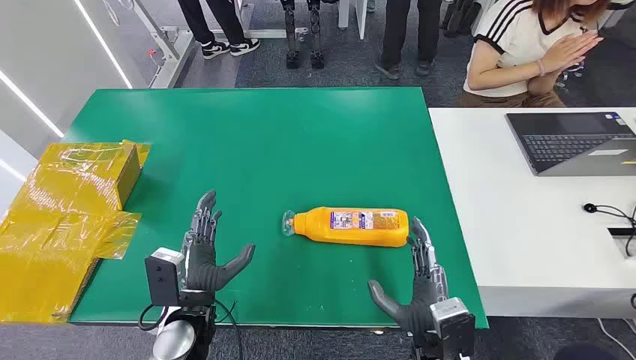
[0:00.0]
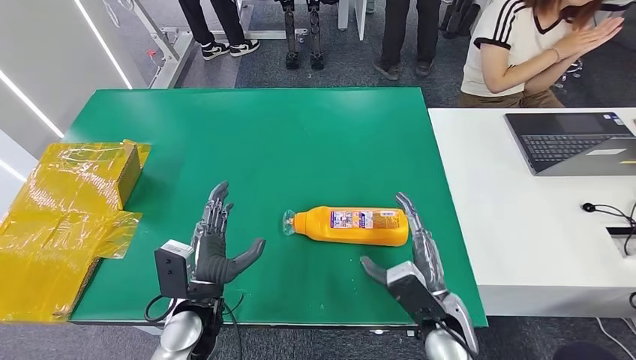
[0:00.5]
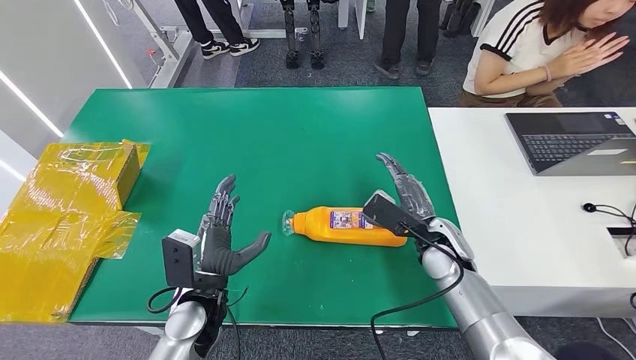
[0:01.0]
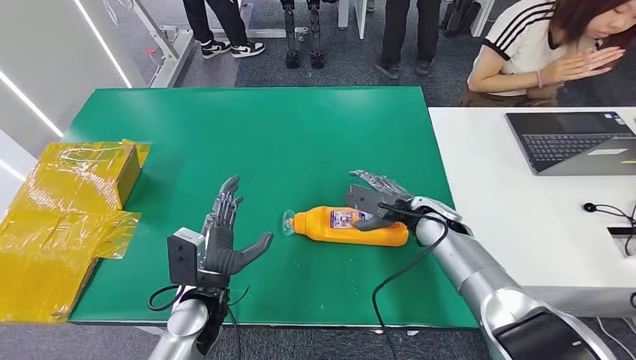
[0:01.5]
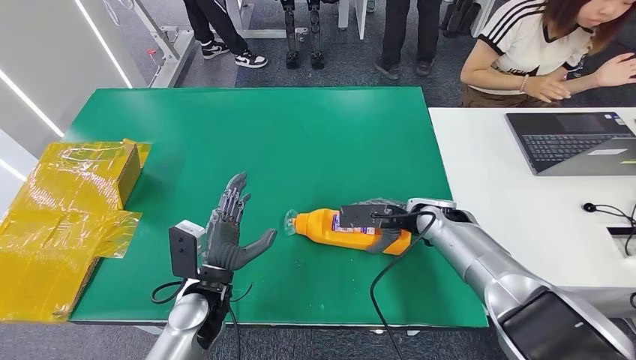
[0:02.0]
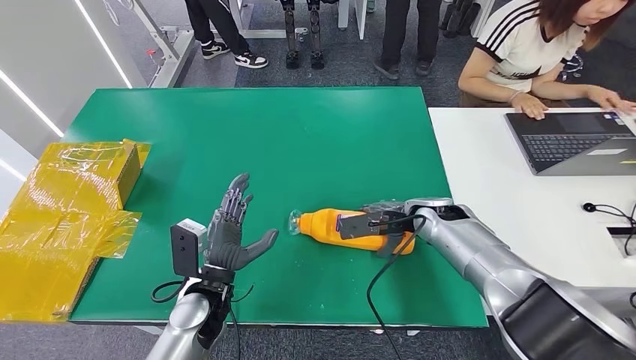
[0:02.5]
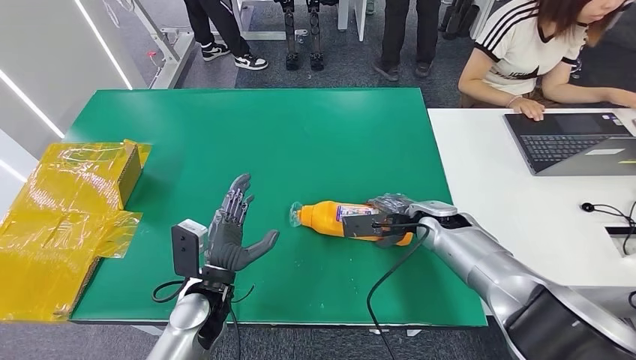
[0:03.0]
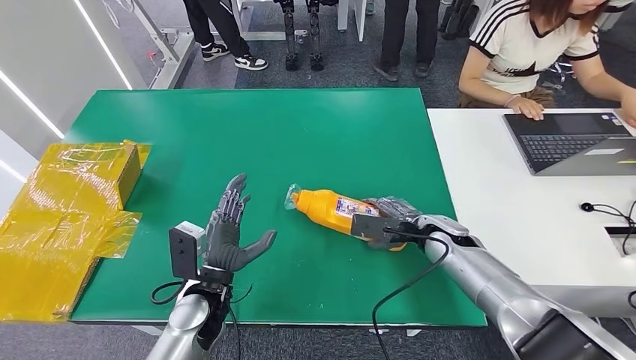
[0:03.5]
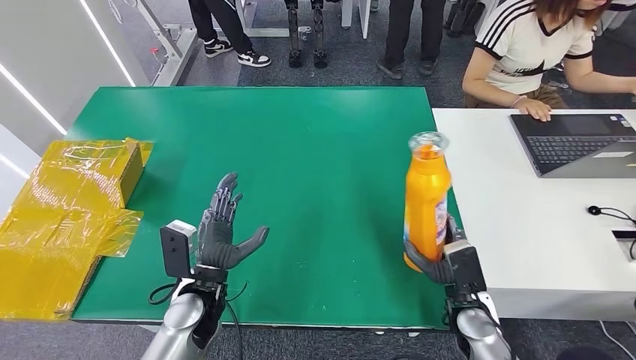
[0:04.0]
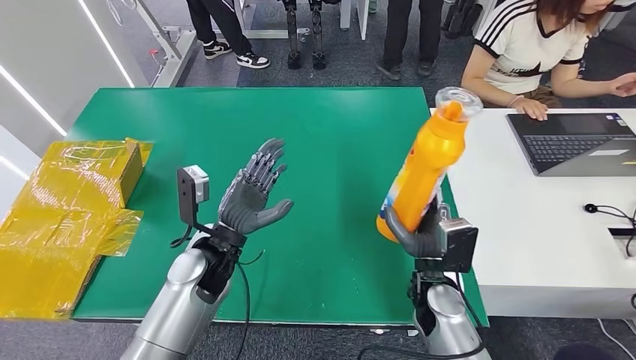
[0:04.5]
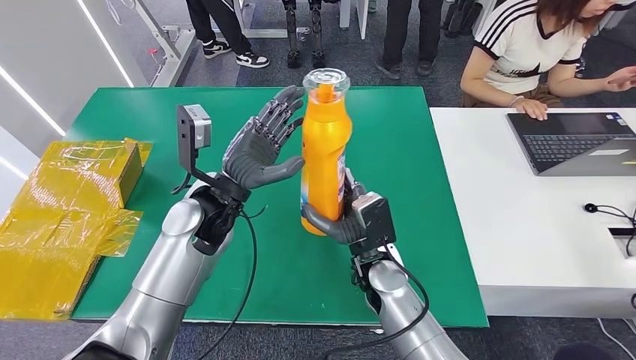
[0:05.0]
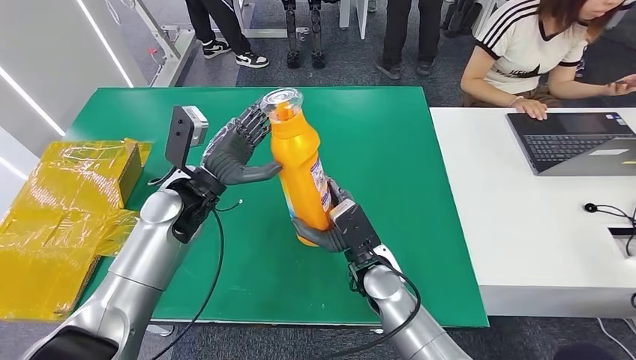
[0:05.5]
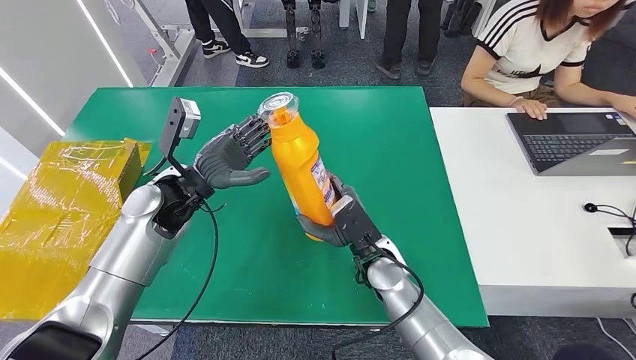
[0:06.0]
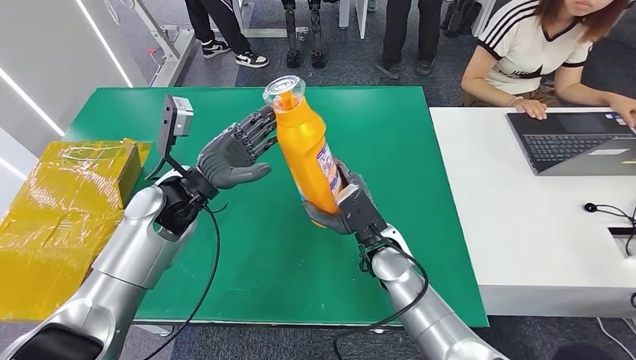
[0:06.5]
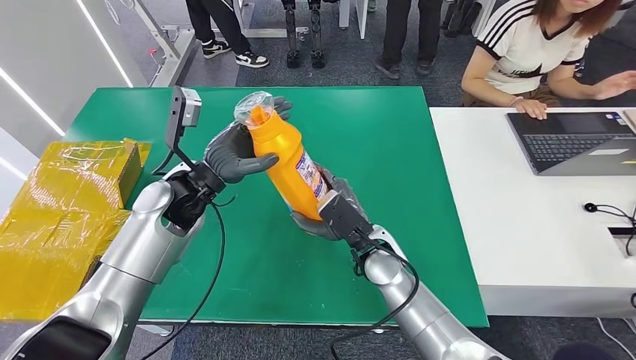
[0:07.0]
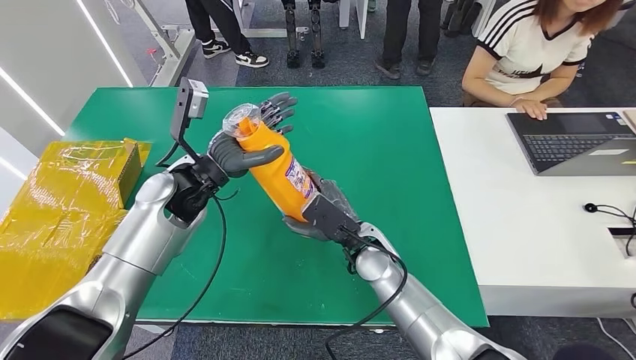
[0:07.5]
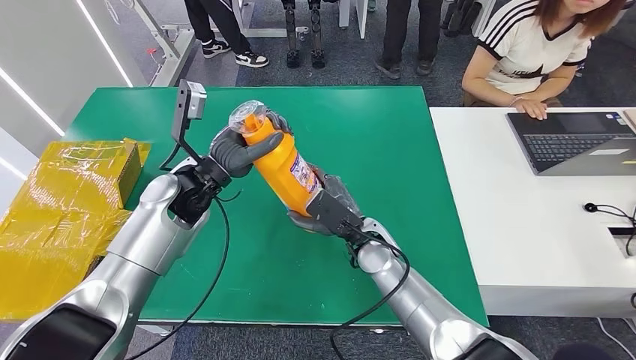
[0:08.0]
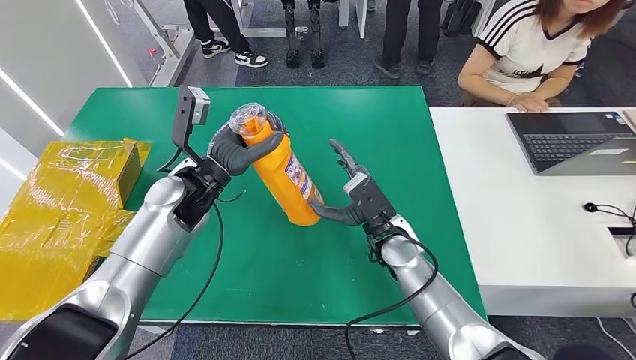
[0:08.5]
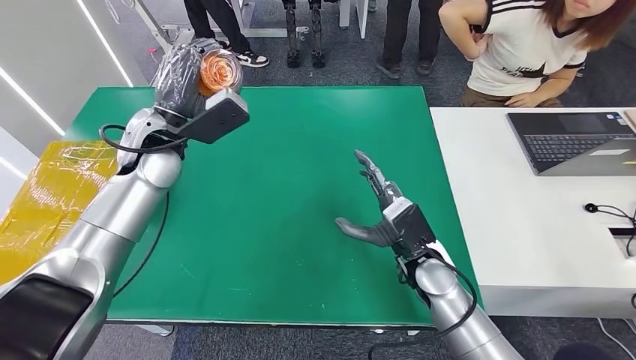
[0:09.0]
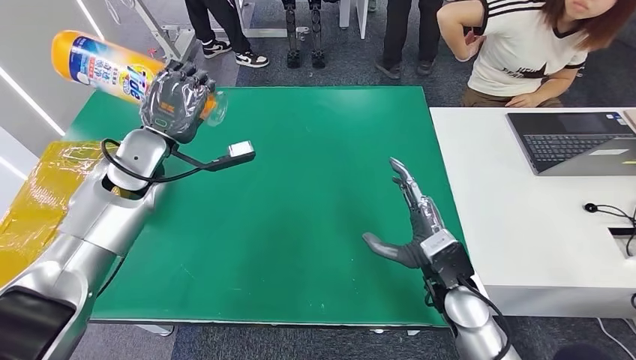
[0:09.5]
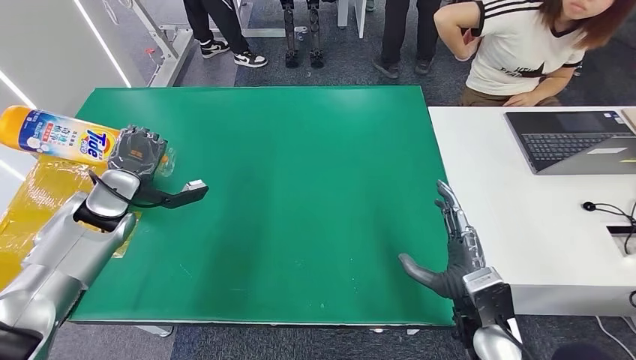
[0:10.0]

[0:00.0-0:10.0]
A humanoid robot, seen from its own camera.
Step, 0:00.0 to 0:04.0: Pick up the bottle from the table.
0:06.0 to 0:08.0: The hands stay close to where they were, moving slightly.

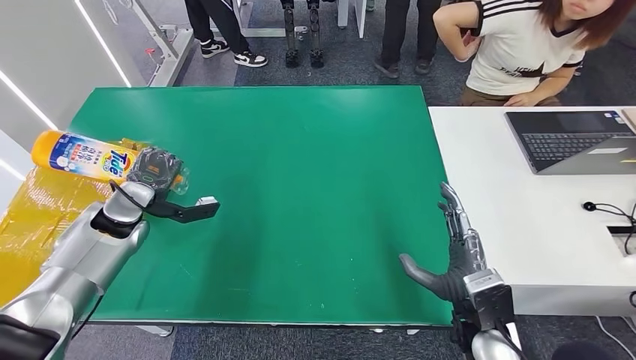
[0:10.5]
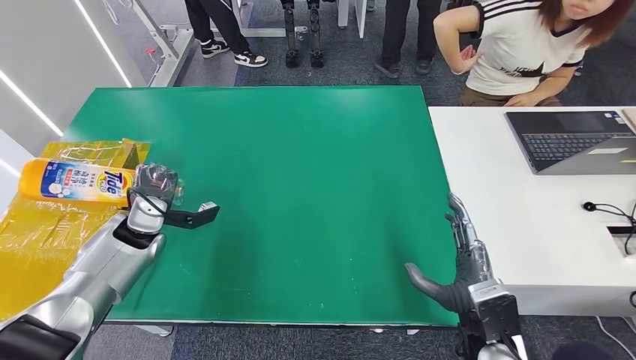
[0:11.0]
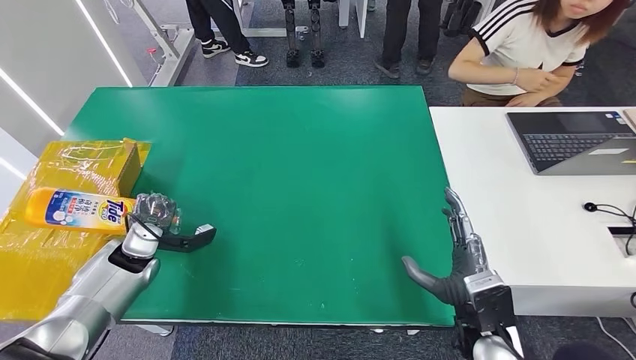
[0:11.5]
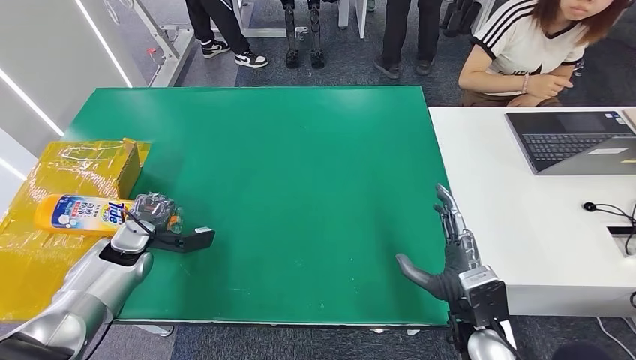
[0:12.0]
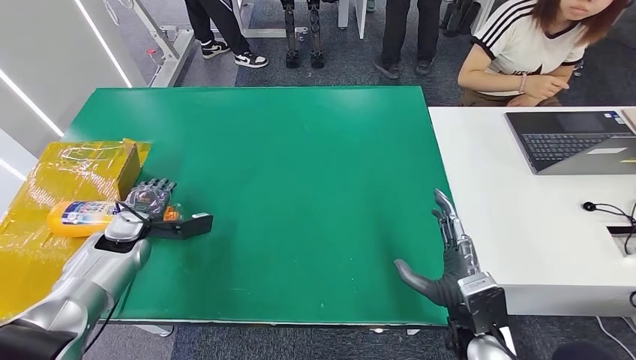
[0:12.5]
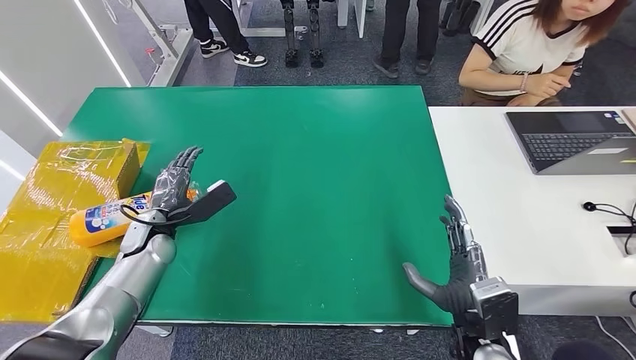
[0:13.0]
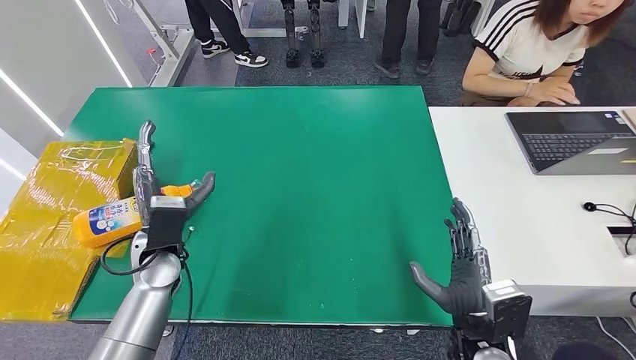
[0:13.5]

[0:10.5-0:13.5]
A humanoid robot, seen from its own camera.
Step, 0:10.5 to 0:13.5: Turn the bottle to the front side.
0:10.5 to 0:12.0: The left hand heads downward, covering roughly 10 cm.
0:12.0 to 0:13.5: The left hand shifts about 15 cm to the right and upward.

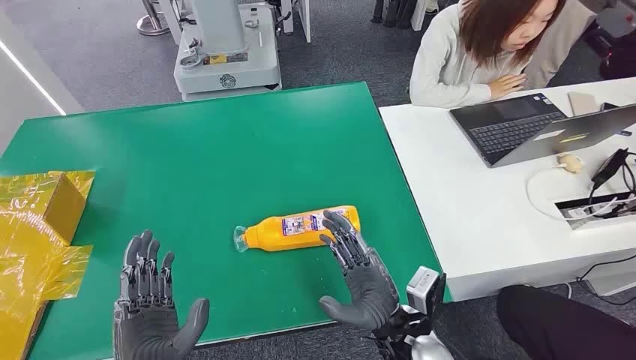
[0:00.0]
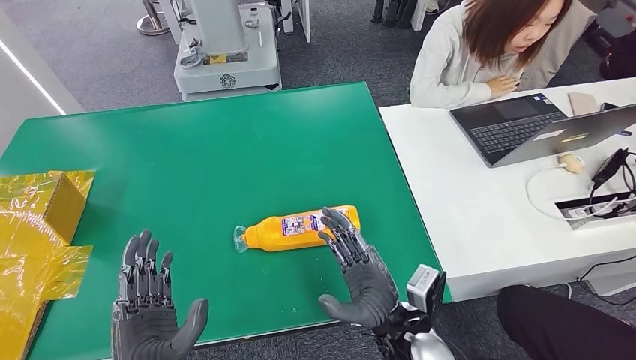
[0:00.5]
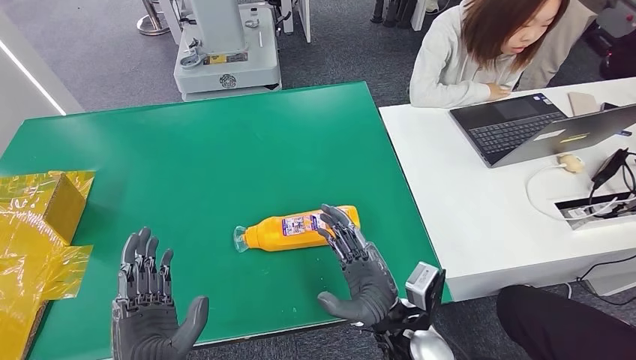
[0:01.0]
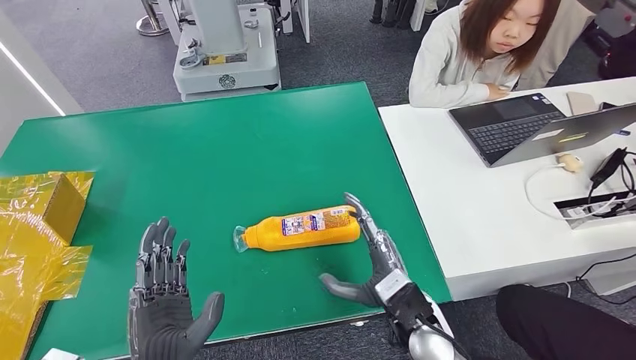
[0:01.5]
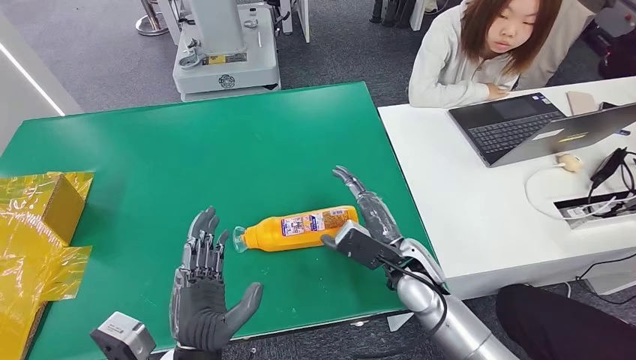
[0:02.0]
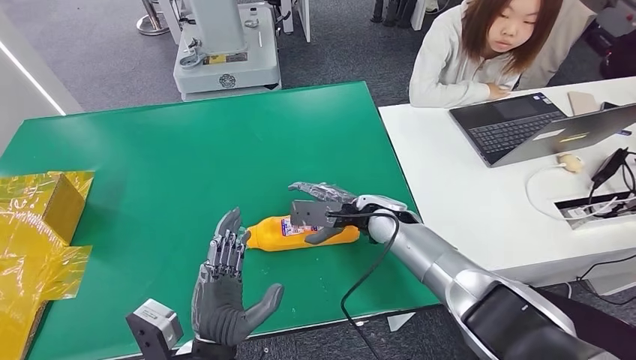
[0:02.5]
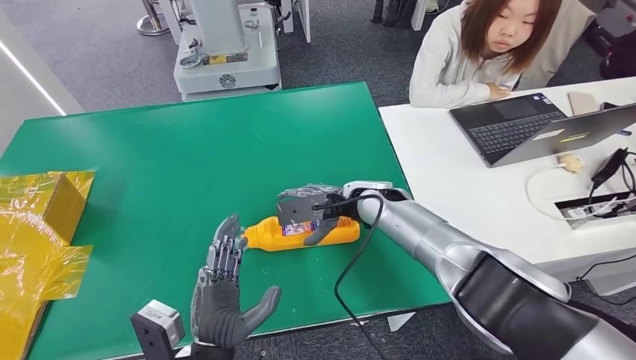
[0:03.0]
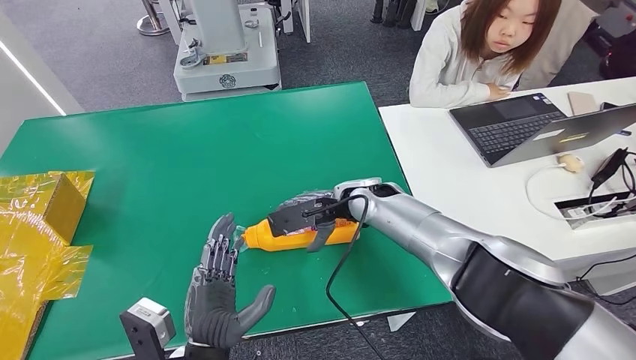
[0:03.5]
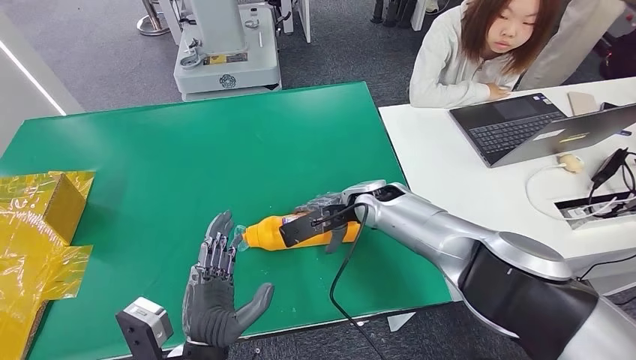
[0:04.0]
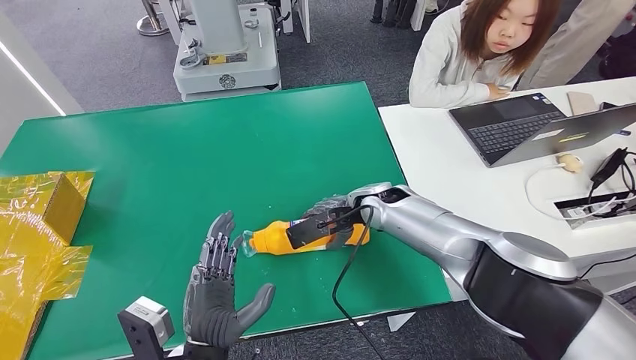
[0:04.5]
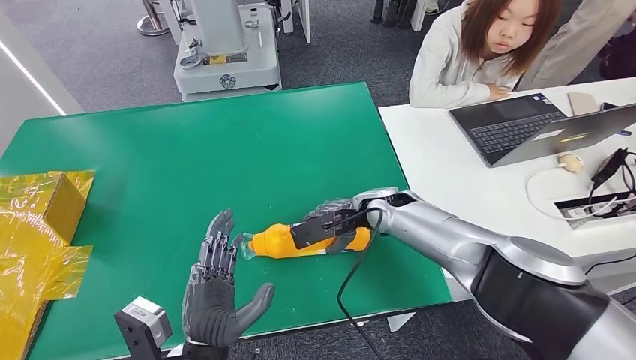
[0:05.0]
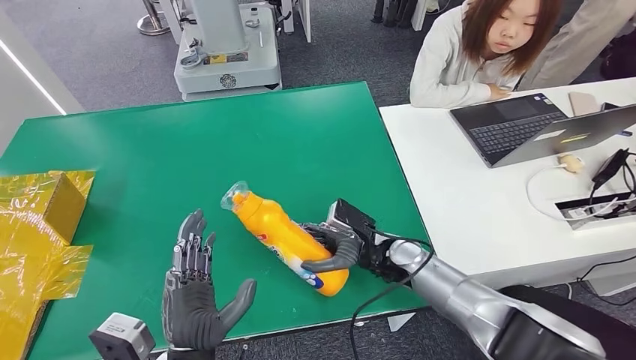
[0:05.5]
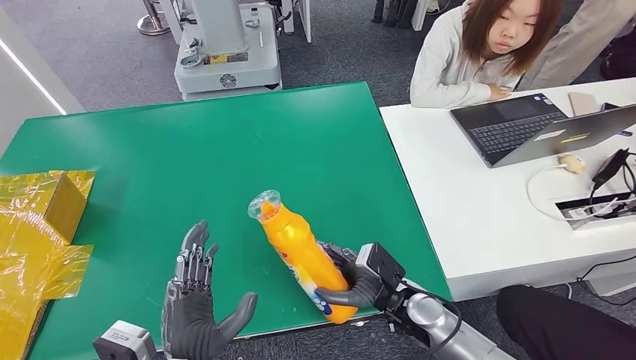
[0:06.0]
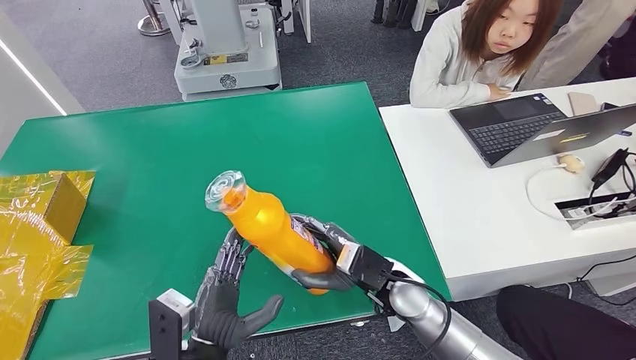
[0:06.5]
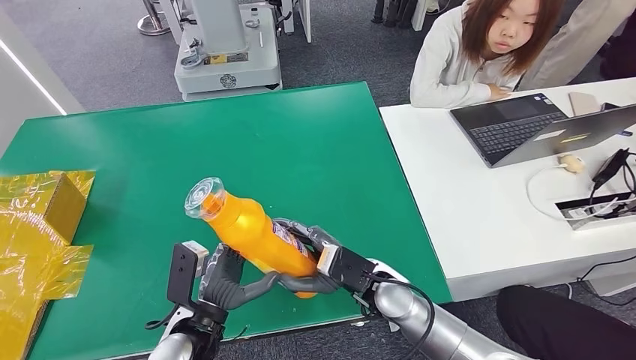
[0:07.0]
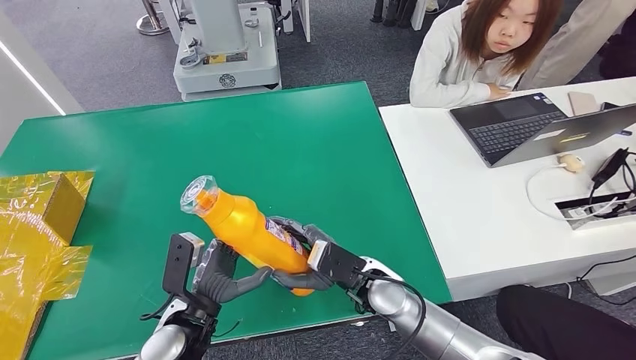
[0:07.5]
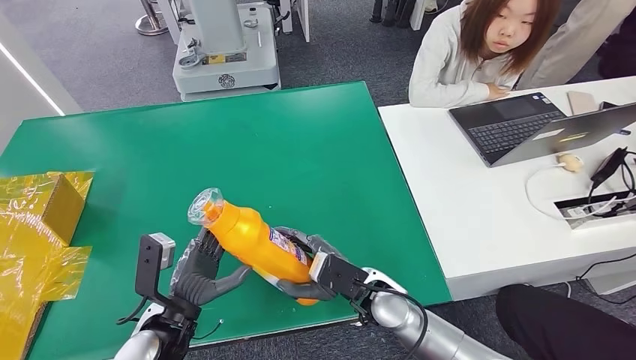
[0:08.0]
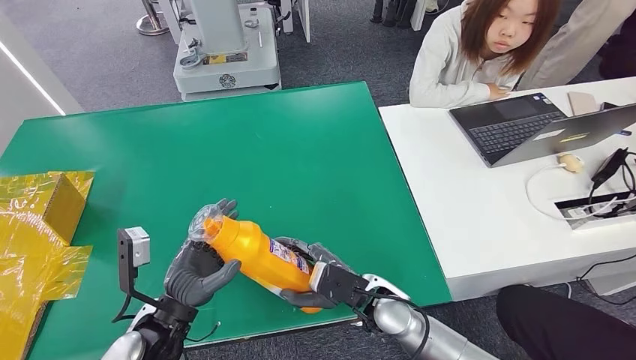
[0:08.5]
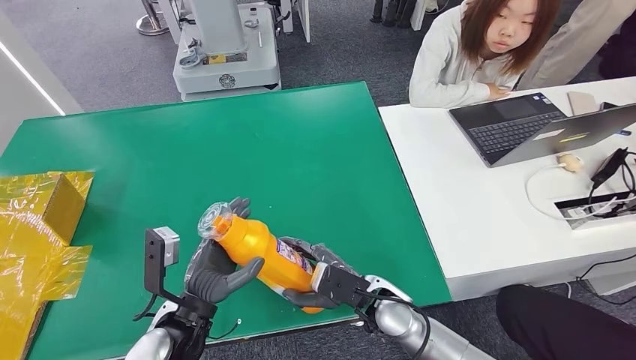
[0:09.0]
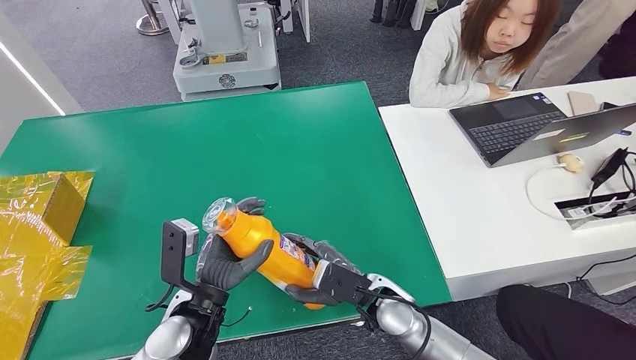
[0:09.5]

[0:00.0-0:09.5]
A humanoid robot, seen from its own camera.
Step, 0:00.0 to 0:05.5: Pick up the bottle from the table.
0:02.0 to 0:04.0: The right hand travels forward by approximately 15 cm.
0:04.0 to 0:05.5: The right hand shifts about 15 cm downward and backward.
0:05.5 to 0:07.5: The left hand goes about 5 cm forward. The right hand heads to the left and backward, covering about 10 cm.
0:07.5 to 0:09.5: The left hand moves approximately 5 cm.
